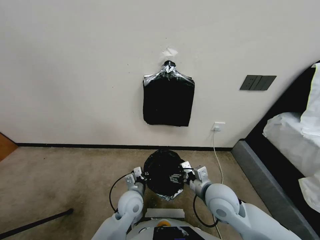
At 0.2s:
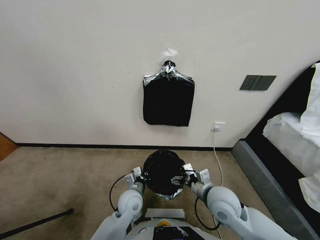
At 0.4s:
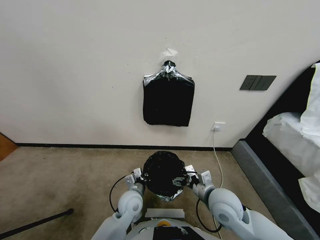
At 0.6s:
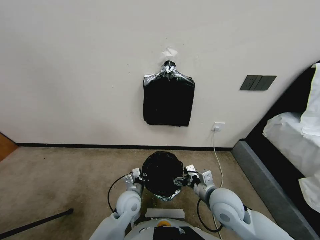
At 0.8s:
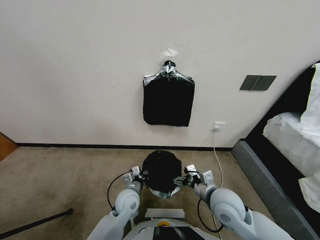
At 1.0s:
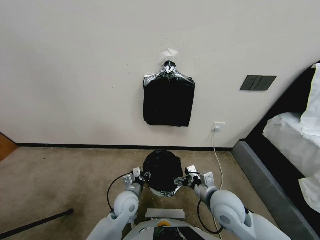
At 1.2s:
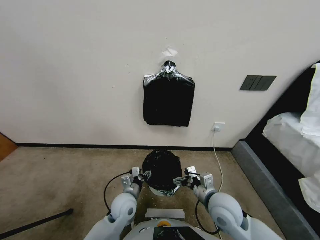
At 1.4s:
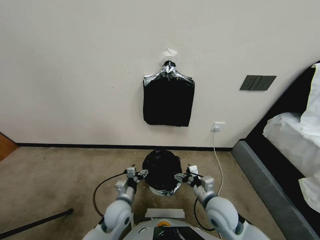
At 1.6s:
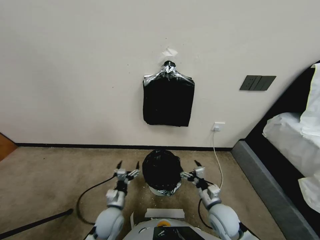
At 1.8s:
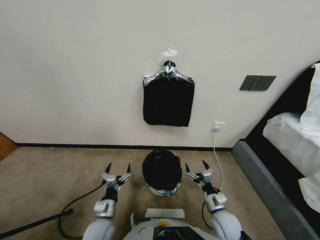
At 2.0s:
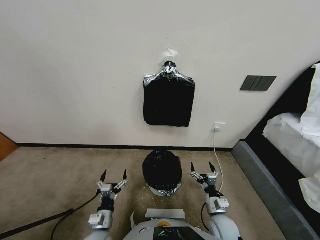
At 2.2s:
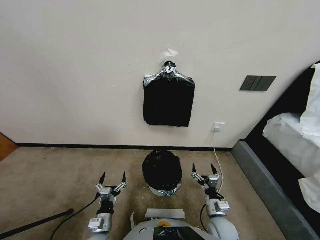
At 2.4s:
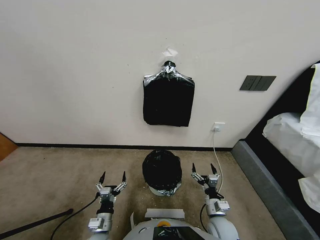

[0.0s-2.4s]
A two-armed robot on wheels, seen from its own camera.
Task of the whole recording: Place a trash bag onto the trash bin.
0.0s to 1.2s: The left gripper moves some 5 cm, and opens.
1.2s to 2.4s: The right gripper travels downward by roughly 10 cm, while the left gripper moves backward, to the left and downward, approximately 15 cm.

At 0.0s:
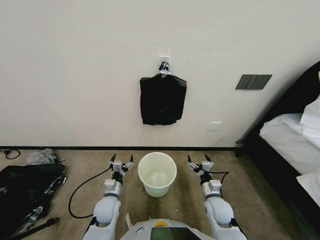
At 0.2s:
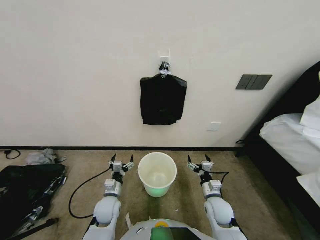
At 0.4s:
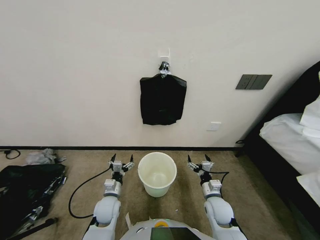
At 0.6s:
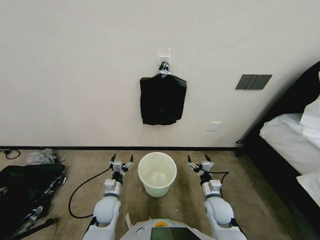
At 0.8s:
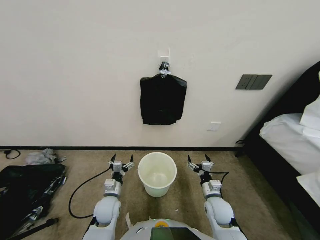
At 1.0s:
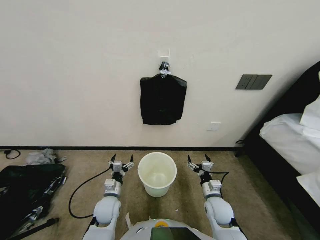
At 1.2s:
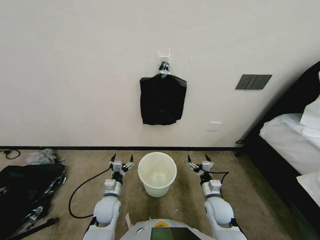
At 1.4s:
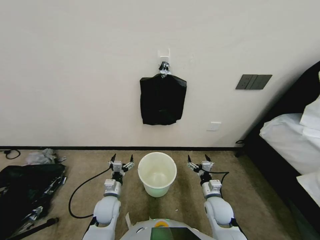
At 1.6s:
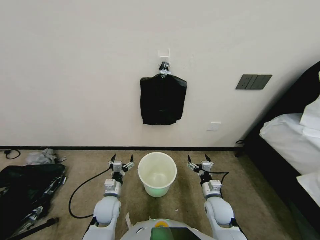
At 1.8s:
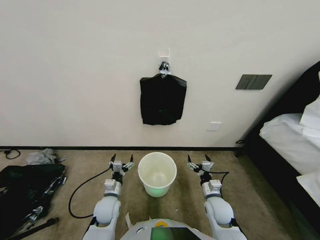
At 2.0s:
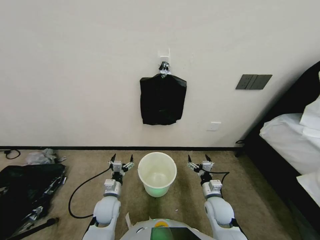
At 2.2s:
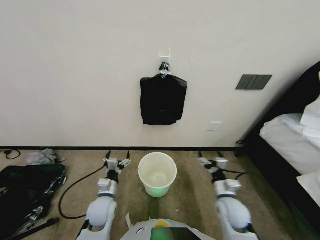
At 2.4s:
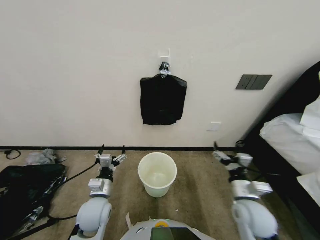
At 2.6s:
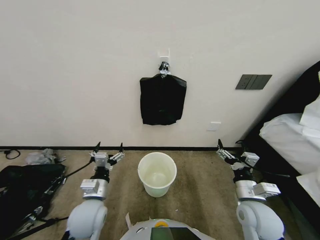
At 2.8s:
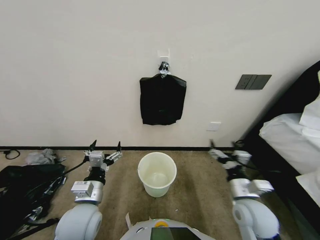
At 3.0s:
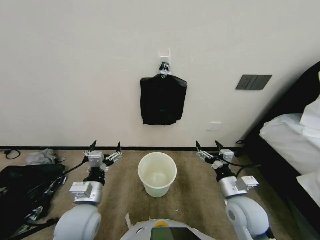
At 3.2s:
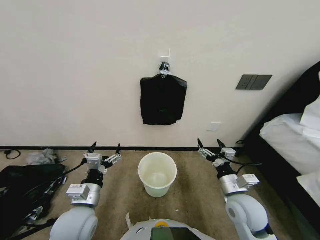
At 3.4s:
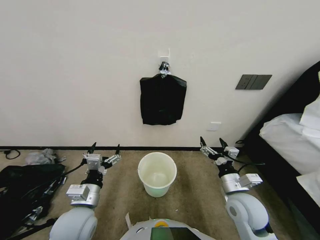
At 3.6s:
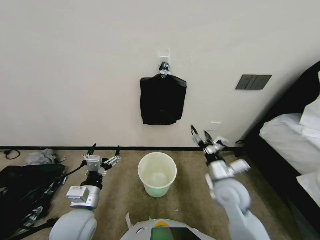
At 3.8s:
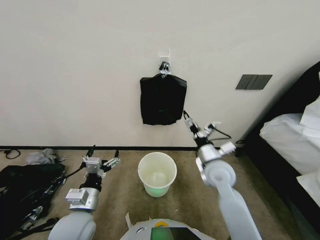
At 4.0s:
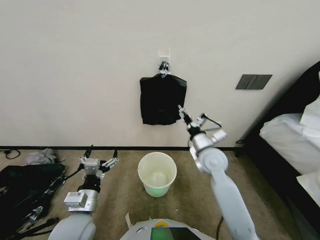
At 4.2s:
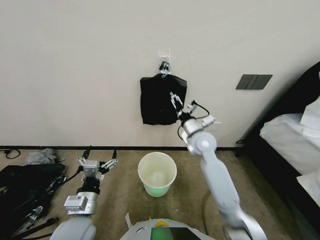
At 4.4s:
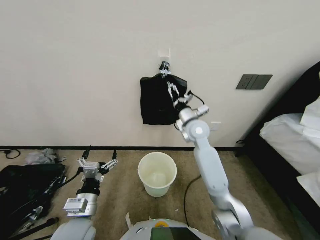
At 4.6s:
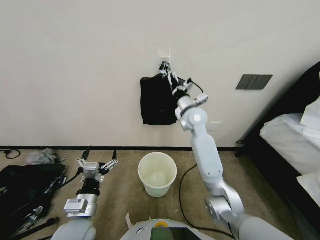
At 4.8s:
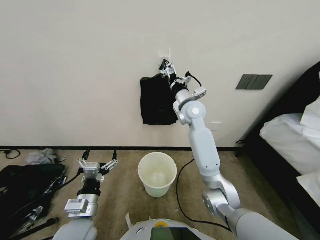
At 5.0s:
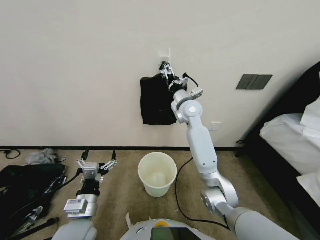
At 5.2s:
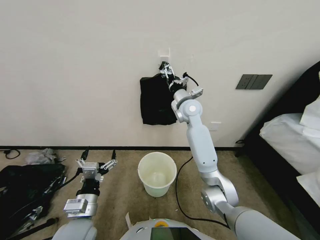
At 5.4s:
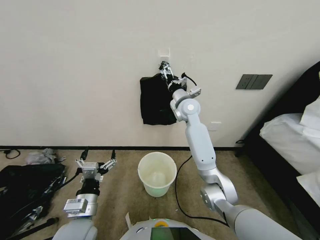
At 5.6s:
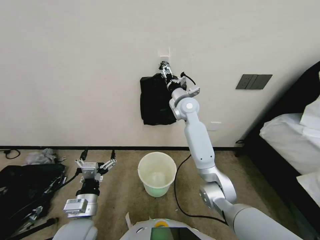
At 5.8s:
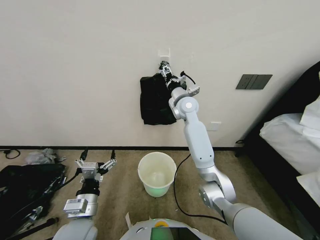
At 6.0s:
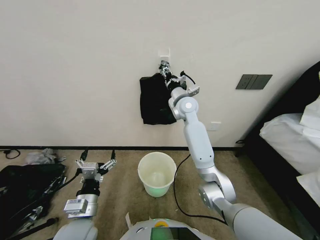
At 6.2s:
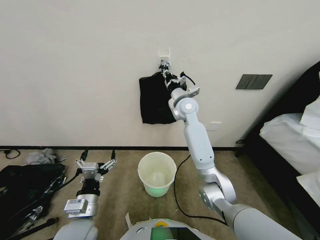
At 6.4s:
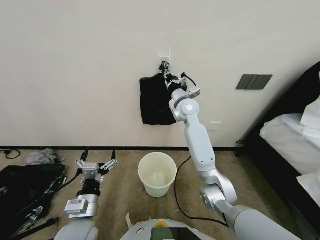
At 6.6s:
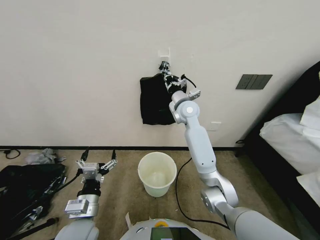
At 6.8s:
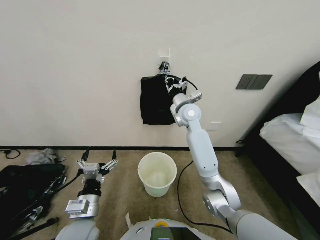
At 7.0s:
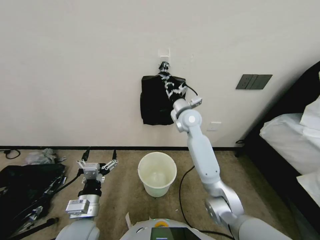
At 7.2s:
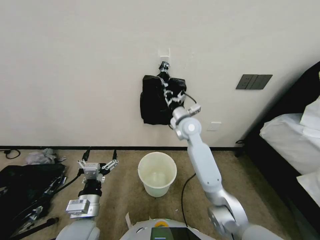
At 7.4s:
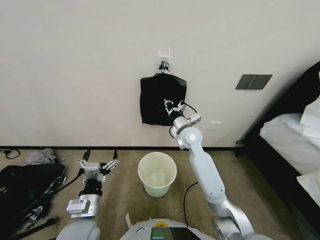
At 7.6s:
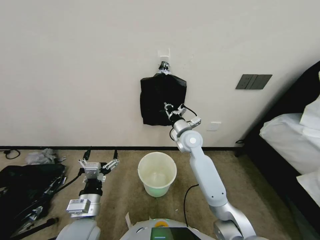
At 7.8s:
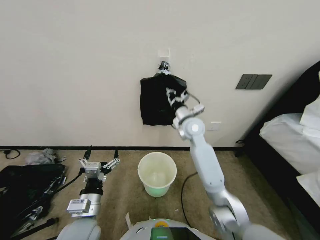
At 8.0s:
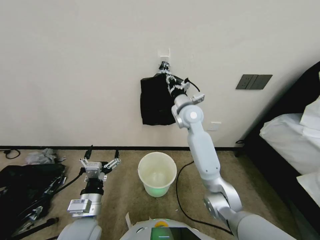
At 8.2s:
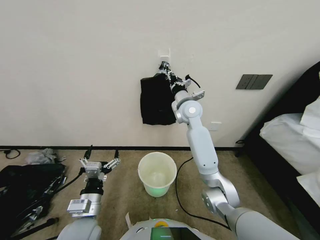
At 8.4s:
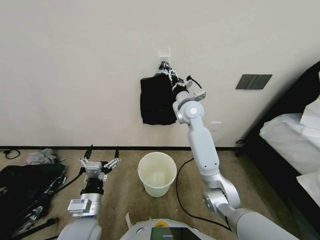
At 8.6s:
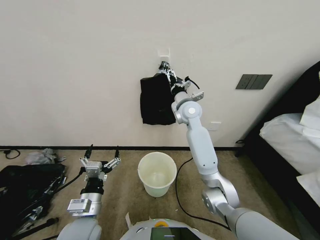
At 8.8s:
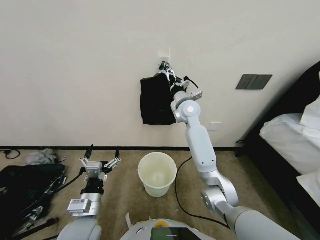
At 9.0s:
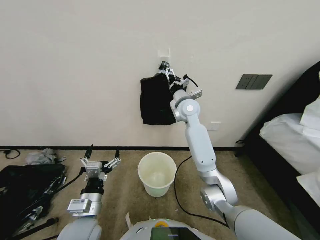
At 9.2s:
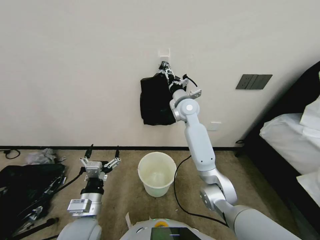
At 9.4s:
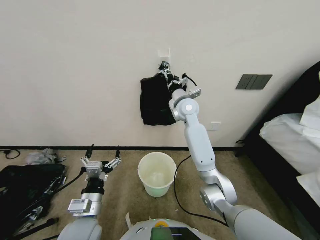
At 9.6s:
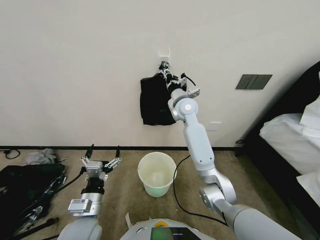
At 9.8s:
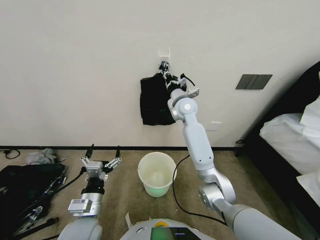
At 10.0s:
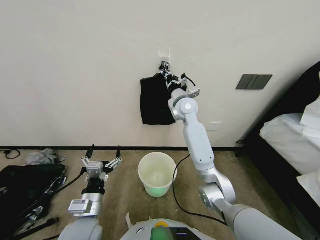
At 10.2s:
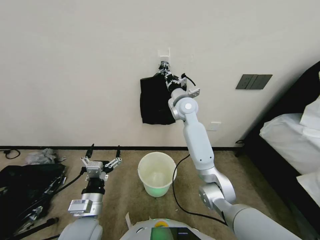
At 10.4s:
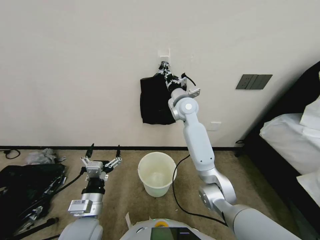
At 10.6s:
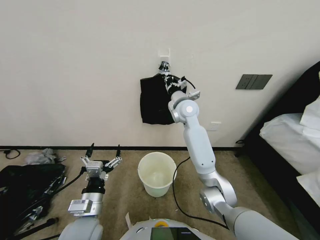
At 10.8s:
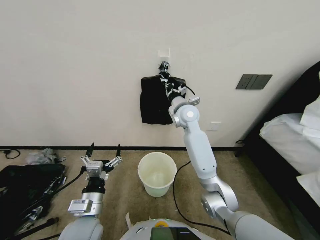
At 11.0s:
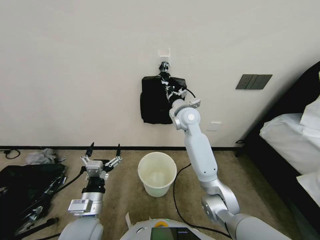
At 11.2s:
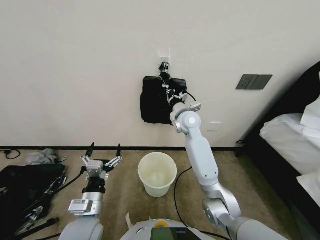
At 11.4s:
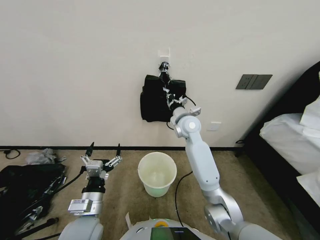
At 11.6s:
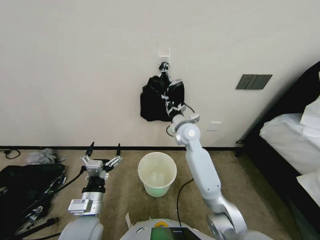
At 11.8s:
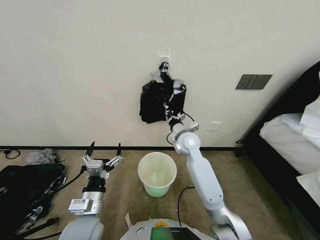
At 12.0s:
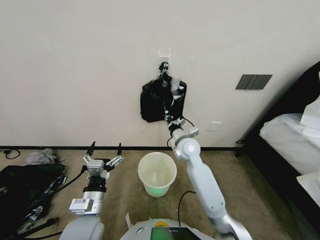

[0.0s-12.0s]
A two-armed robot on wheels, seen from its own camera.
Task of the whole recording: Place a trash bag onto the trash bin.
1.6s to 3.0s: Both grippers travel together upward, some 15 cm.
3.0s to 4.4s: The right gripper heads forward, to the left and upward, covering roughly 30 cm.
4.4s to 6.0s: The right gripper heads forward and upward, covering approximately 10 cm, and closes up.
6.0s to 7.6s: The right gripper heads downward and backward, covering approximately 15 cm, and closes up.
7.6s to 9.0s: The right gripper goes roughly 15 cm upward and forward, and opens.
9.0s to 10.4s: The right gripper closes up.
10.4s to 12.0s: The right gripper goes roughly 15 cm downward and backward.

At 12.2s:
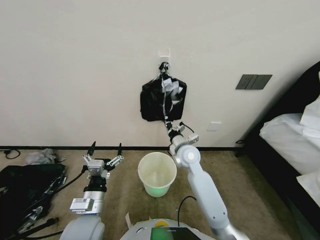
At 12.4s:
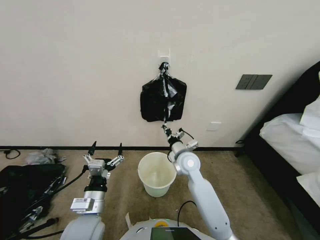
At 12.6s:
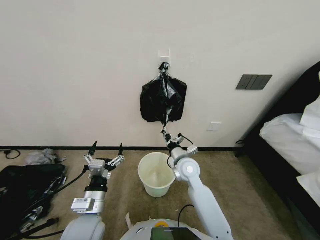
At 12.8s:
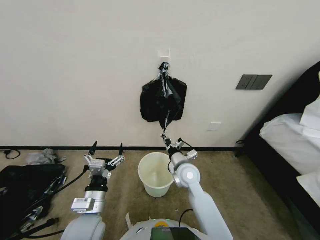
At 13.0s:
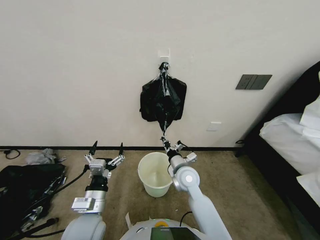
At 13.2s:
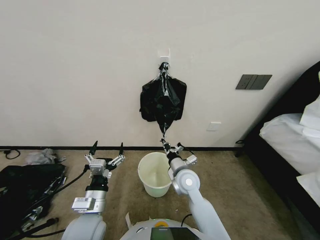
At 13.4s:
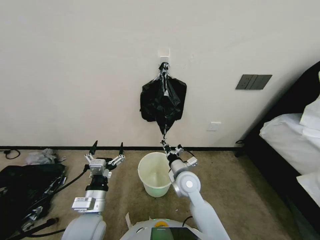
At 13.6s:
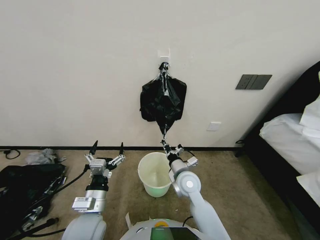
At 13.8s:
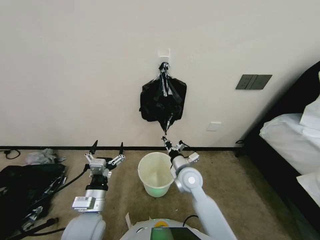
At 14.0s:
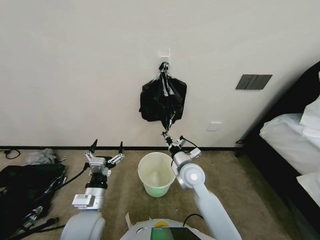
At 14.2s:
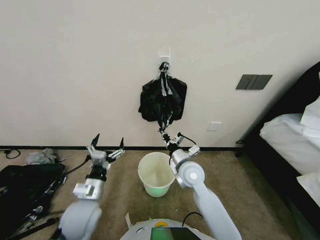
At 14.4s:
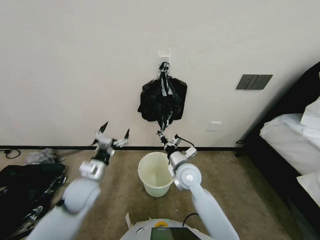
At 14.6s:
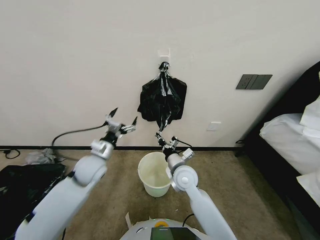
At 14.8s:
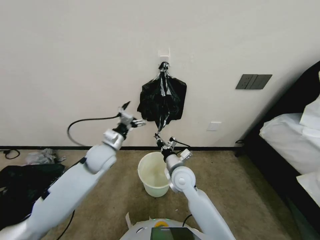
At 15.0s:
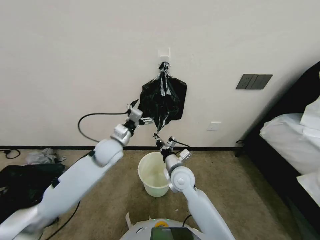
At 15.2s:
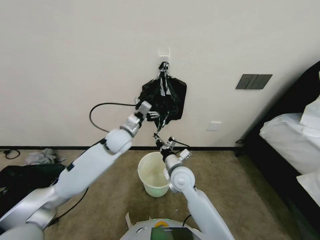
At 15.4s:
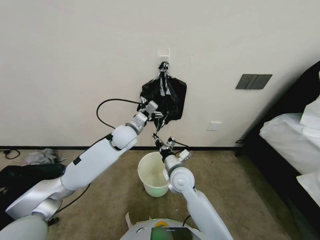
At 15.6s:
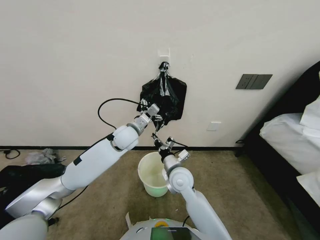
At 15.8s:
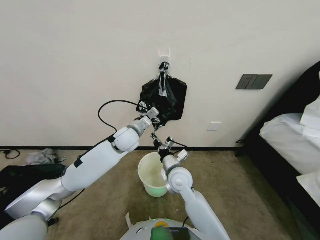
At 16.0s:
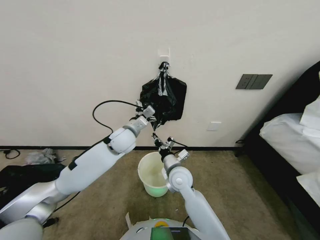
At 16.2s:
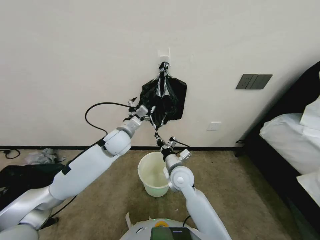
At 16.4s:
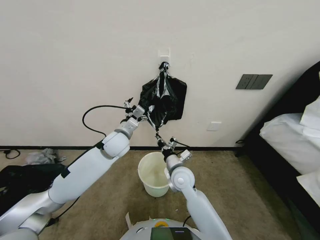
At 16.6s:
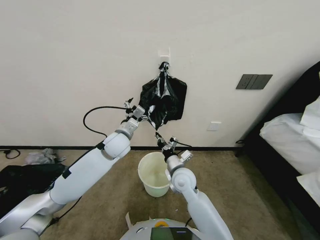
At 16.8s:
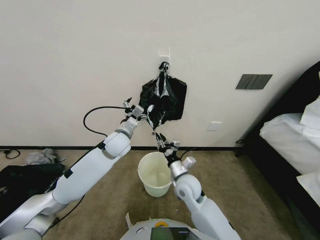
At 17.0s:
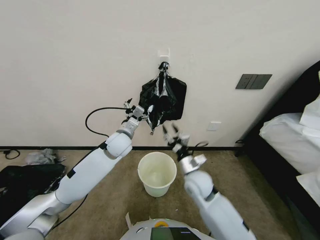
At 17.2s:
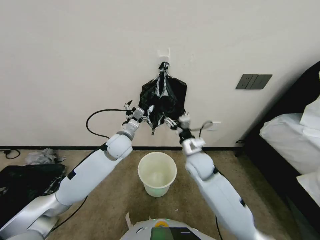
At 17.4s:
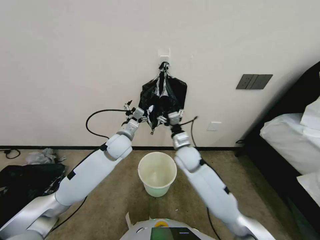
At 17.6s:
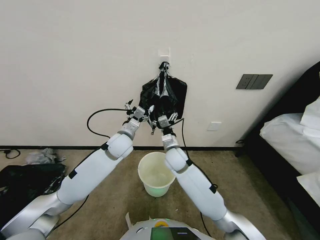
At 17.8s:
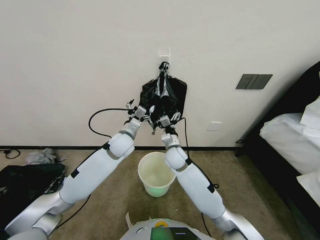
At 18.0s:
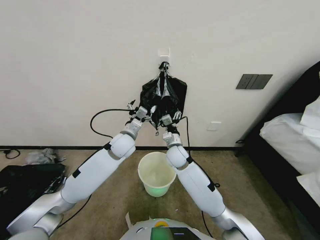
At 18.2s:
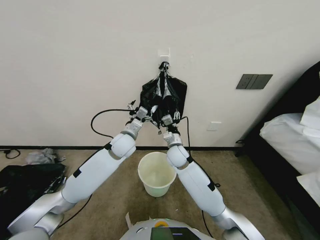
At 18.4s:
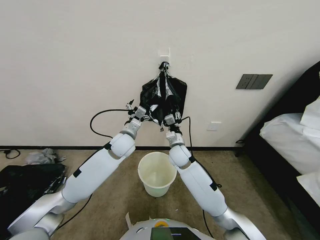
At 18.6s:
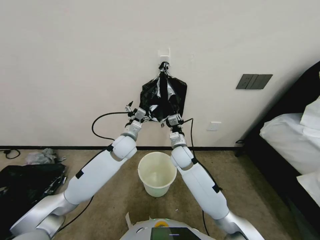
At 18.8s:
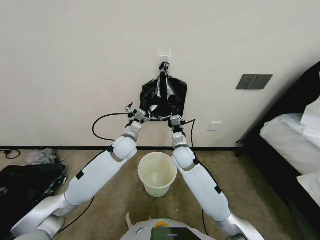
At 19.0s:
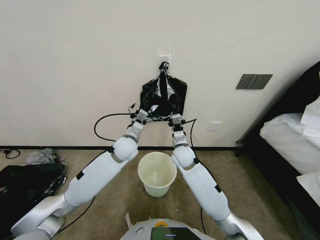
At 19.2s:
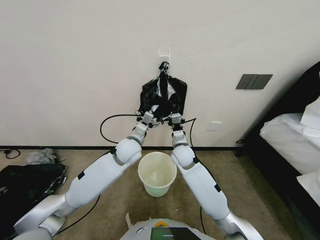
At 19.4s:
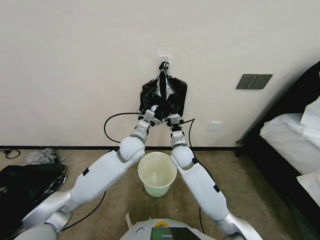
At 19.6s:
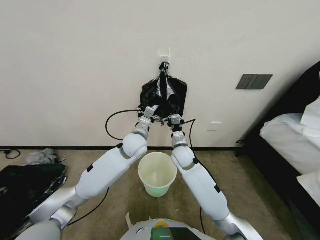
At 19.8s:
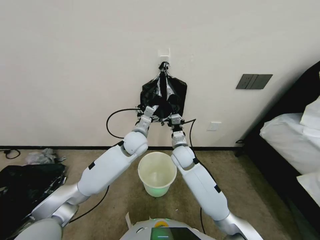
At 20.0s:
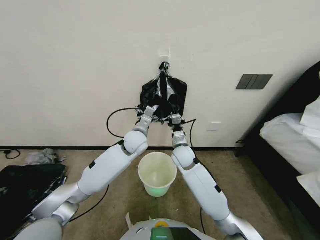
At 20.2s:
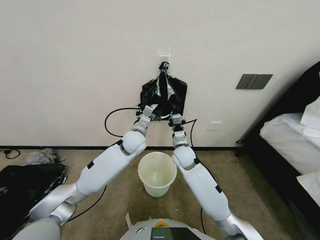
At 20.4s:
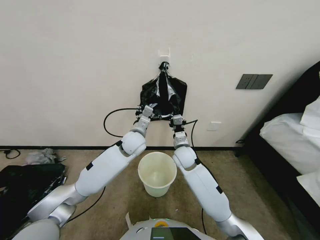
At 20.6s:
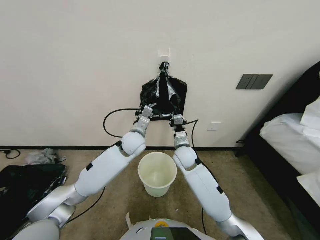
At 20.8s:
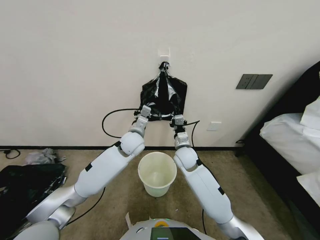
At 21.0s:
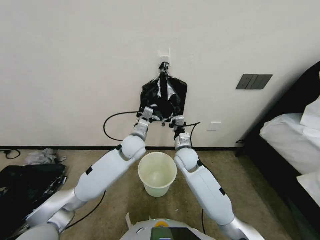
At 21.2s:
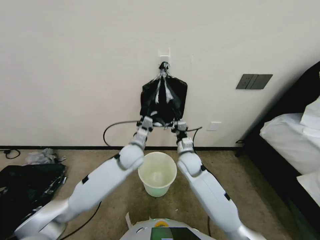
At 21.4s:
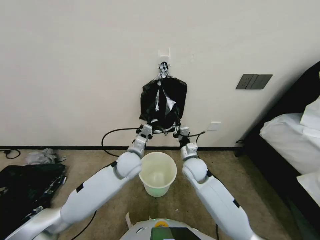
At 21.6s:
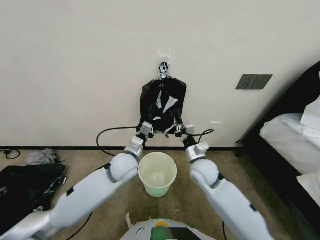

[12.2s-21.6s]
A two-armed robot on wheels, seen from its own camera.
Task of the whole recording: Place a trash bag onto the trash bin.
12.2s to 13.8s: The right gripper is displaced backward and downward by some 10 cm.
13.8s to 15.4s: The left gripper goes roughly 30 cm forward.
15.4s to 17.0s: The right gripper shifts by approximately 5 cm, and opens its fingers.
17.0s to 18.4s: The right gripper is displaced forward by roughly 15 cm, and opens, then closes once more.
18.4s to 20.0s: The left gripper heads to the right, covering some 5 cm; the right gripper closes.
20.0s to 21.6s: The left gripper moves backward, roughly 10 cm, and closes up, while the right gripper heads backward and to the right, covering roughly 10 cm.
